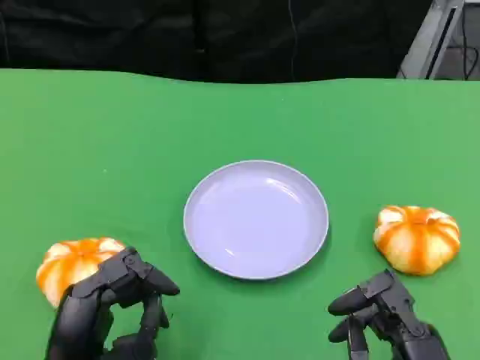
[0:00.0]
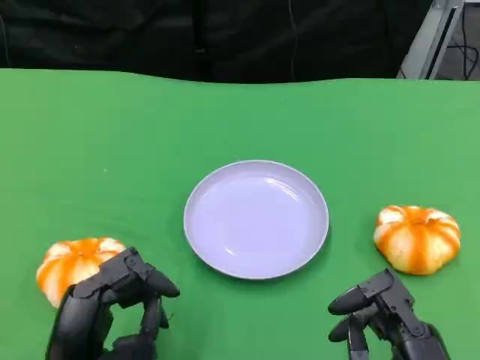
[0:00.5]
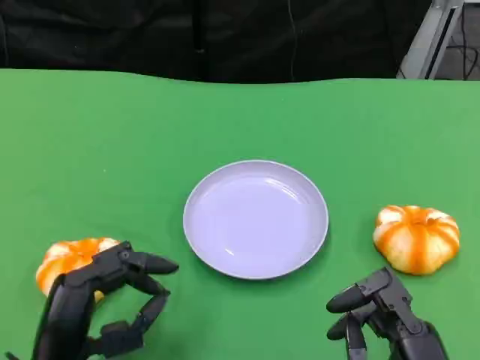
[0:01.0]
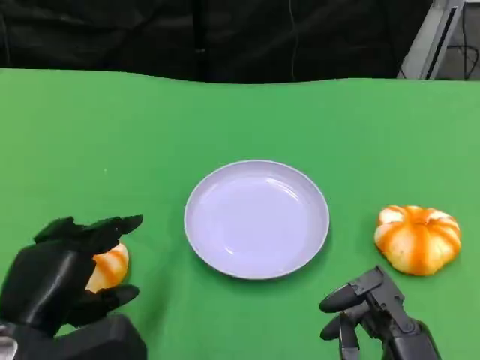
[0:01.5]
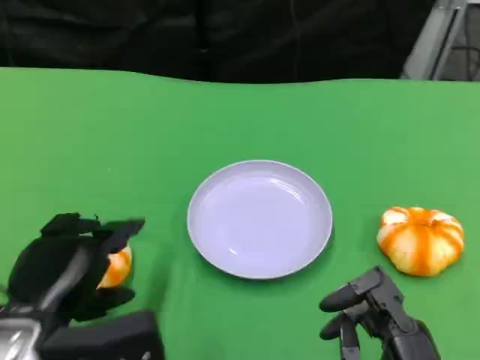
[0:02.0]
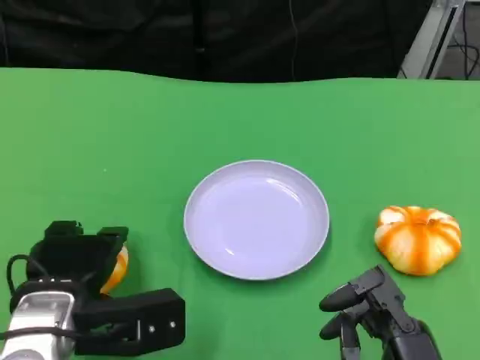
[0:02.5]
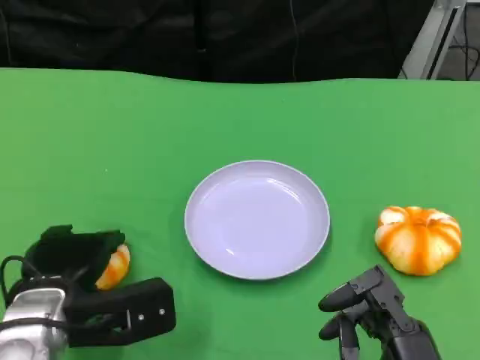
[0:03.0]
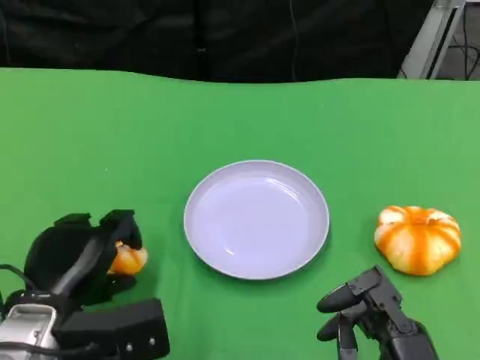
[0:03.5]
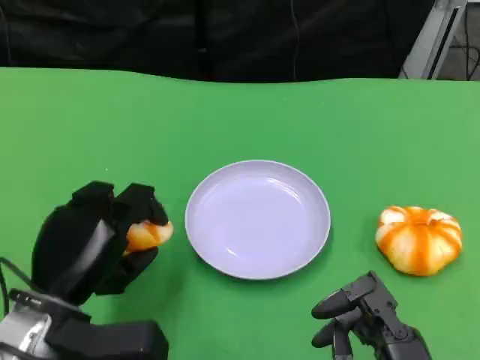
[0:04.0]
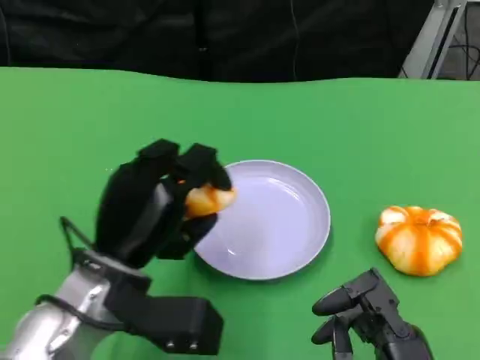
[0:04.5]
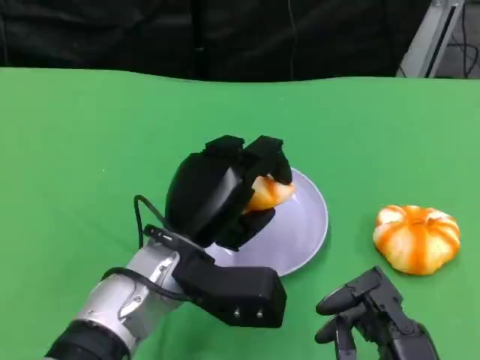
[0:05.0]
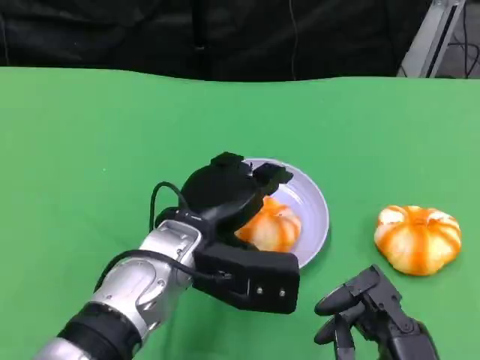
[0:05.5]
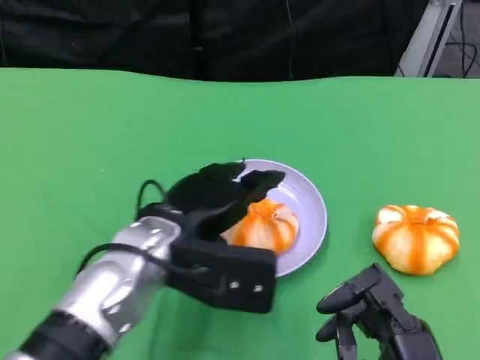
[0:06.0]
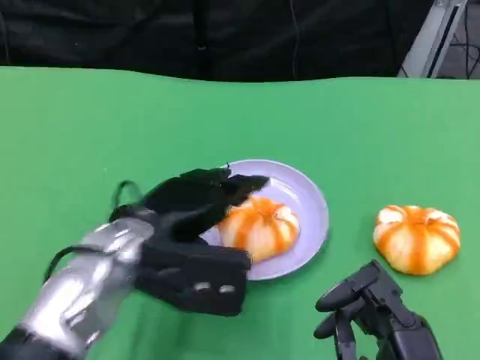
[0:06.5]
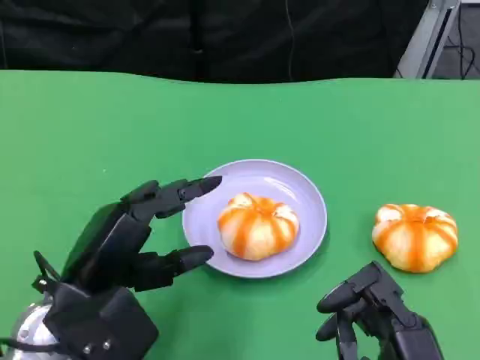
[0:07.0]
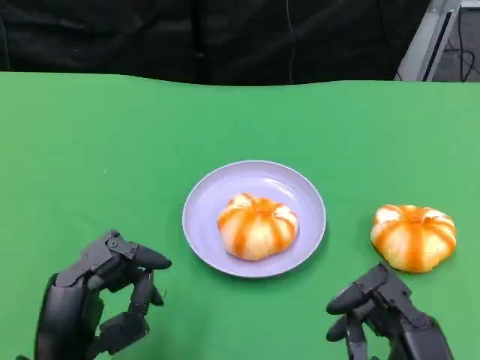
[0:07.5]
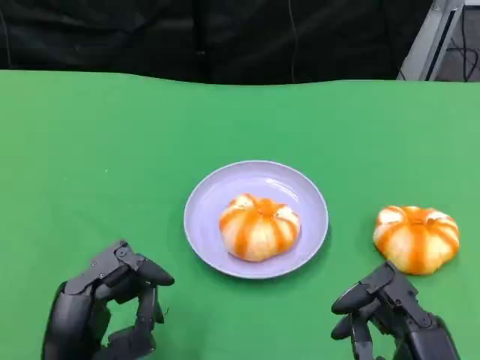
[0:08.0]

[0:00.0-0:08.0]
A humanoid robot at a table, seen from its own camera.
Task of the whole recording: Grasp the bread from the table and place it into the plate.
0:00.0 to 0:02.0: The left hand travels forward by some 5 cm.
0:04.0 to 0:06.0: The left hand heads to the right, covering approximately 10 cm.
0:06.0 to 0:08.0: The left hand heads backward, to the left and downward, covering about 15 cm.

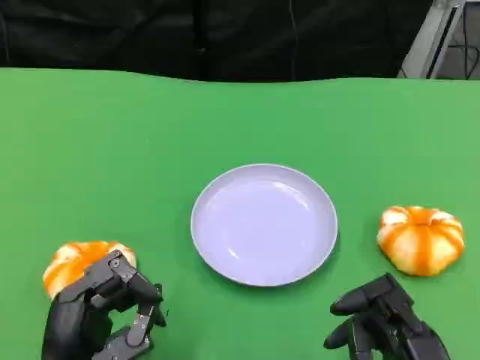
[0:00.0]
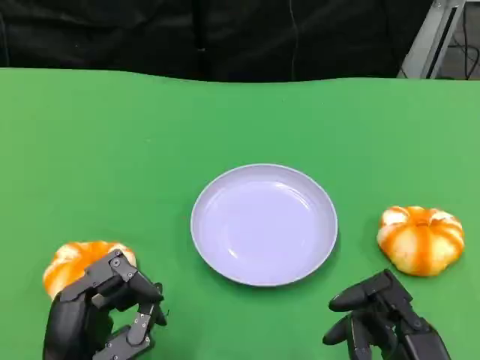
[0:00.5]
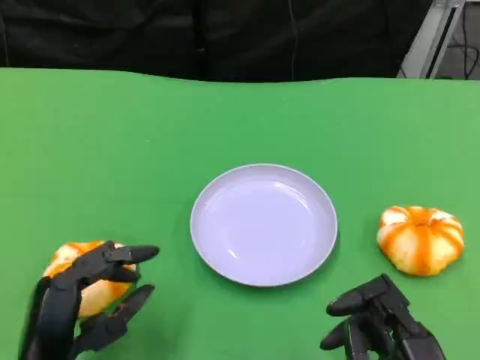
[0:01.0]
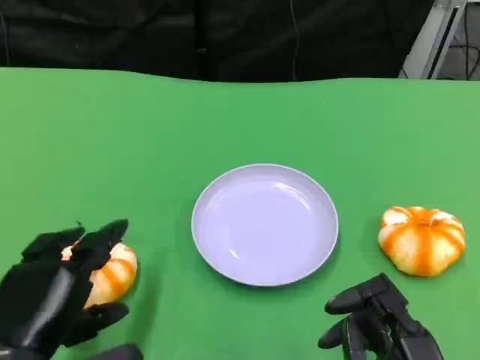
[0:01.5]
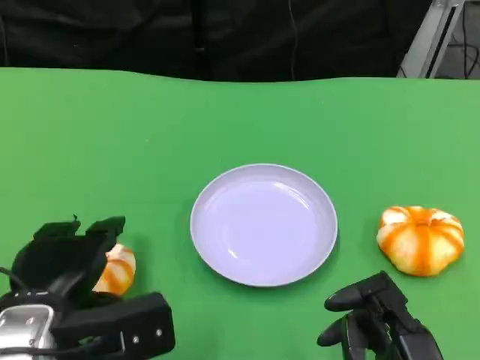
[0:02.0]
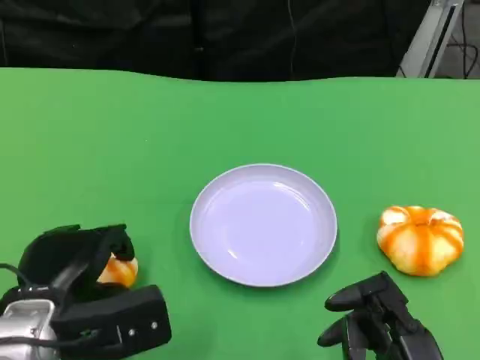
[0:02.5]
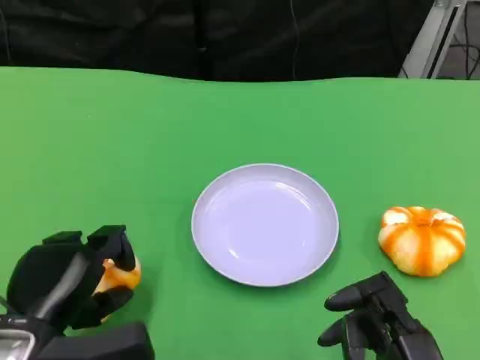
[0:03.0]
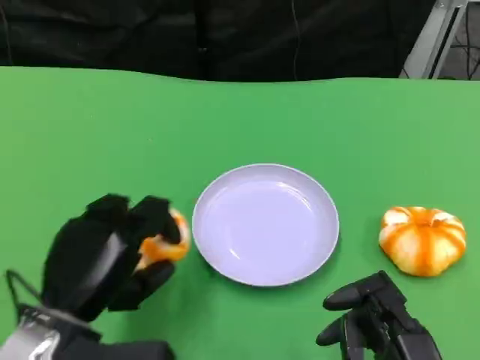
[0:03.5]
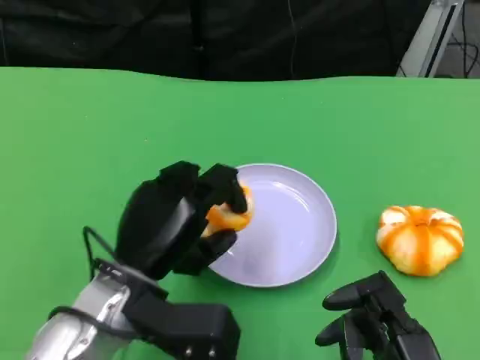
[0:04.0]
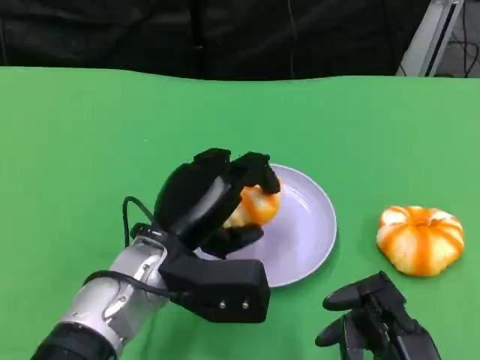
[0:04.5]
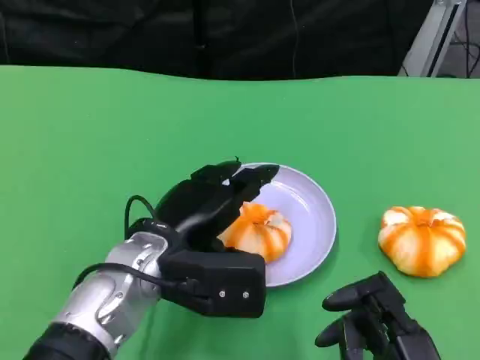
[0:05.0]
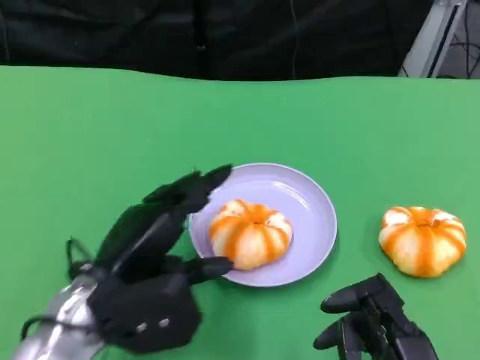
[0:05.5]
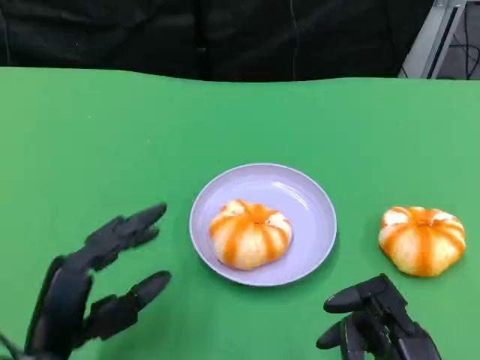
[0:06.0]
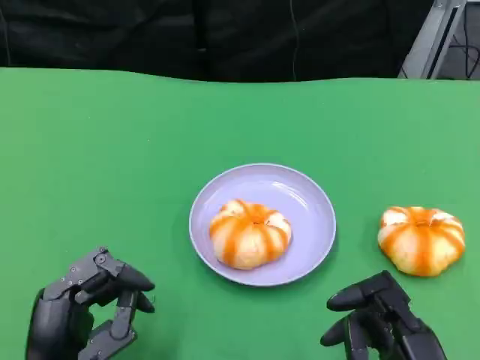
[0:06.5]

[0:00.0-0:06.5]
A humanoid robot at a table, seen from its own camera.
Task of the whole recording: Grasp the bread from the table and place it into the plate.
0:00.0 to 0:02.0: The left hand travels forward by roughly 5 cm.
0:02.0 to 0:04.5: The left hand shifts roughly 10 cm to the right and forward.
0:04.5 to 0:06.5: The left hand travels backward and to the left by roughly 15 cm.

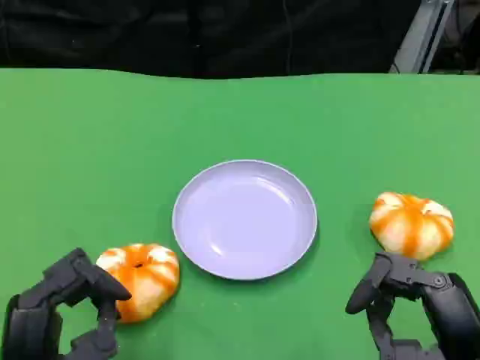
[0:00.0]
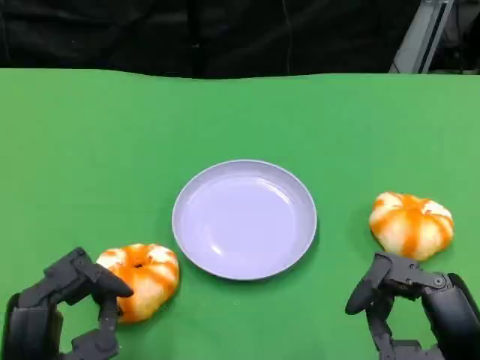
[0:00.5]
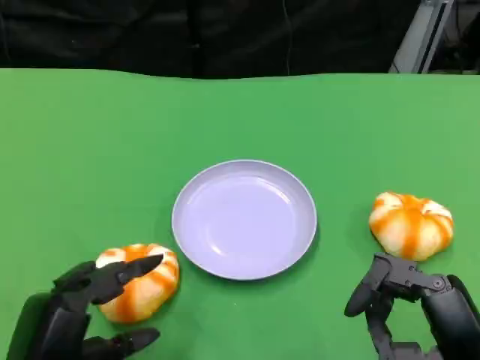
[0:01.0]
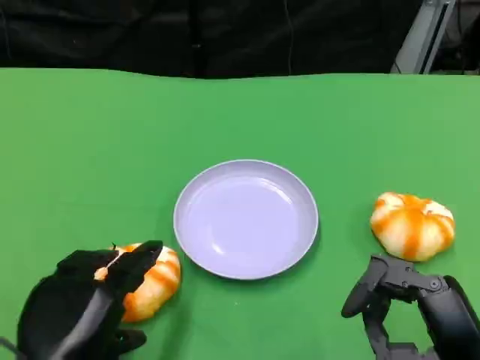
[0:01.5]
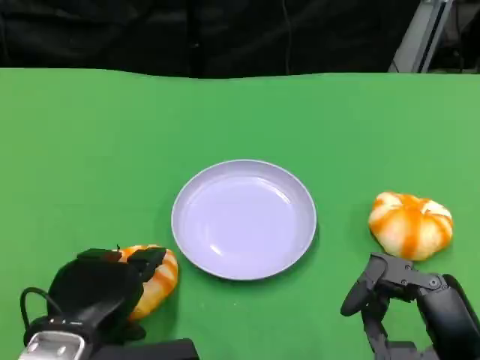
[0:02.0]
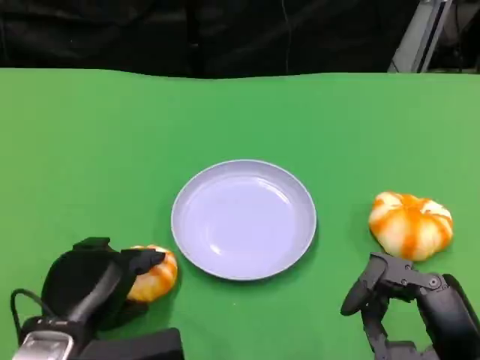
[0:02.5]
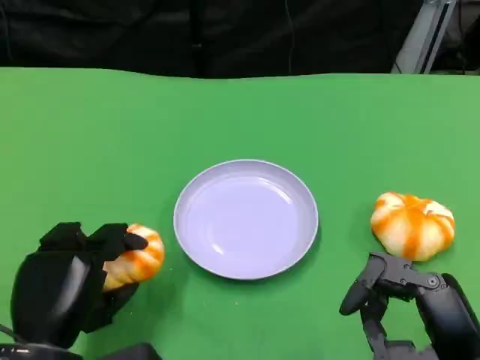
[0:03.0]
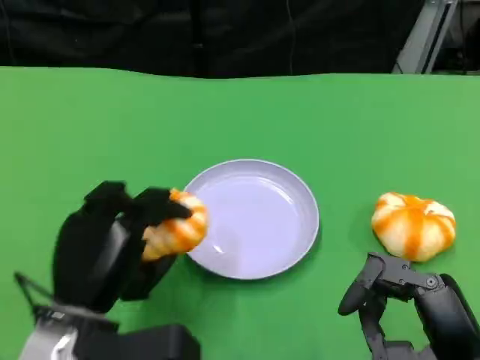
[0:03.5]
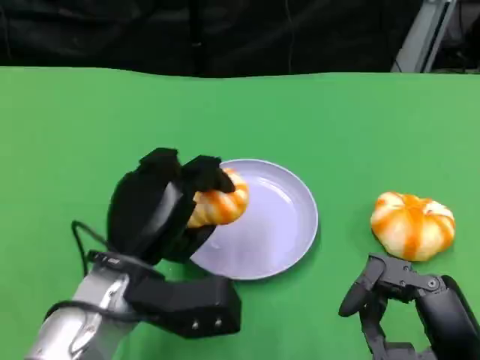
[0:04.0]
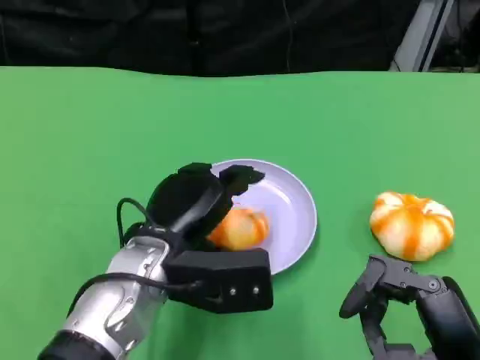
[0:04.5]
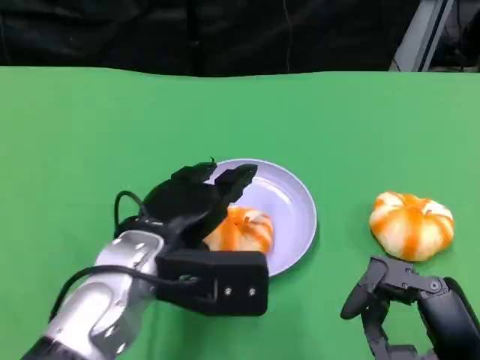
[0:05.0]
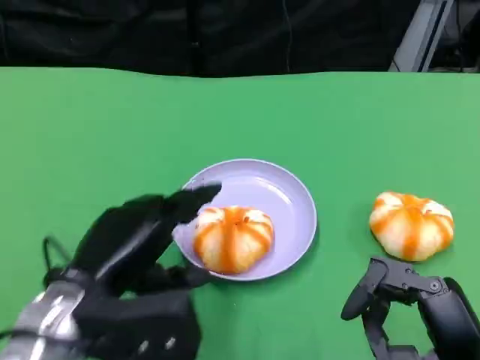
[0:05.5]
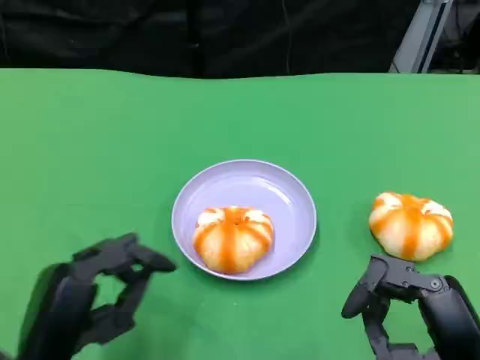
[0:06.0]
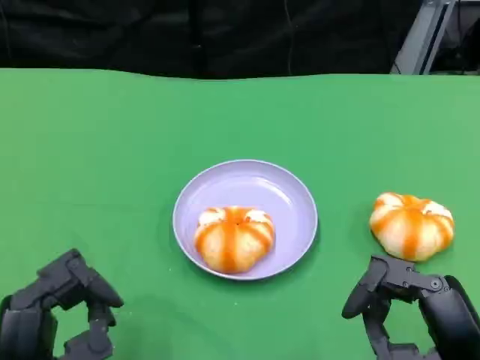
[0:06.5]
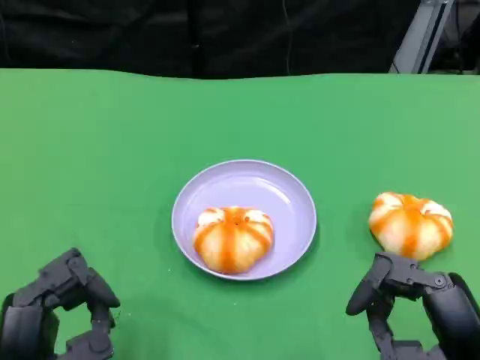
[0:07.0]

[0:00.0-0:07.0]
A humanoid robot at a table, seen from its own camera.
Task of the whole recording: Grasp the bread from the table and place it into the plate.
0:00.0 to 0:02.0: The left hand shifts approximately 5 cm forward.
0:03.5 to 0:05.0: The left hand heads to the right, covering some 5 cm.
0:05.0 to 0:07.0: The left hand goes approximately 15 cm backward, to the left and downward.

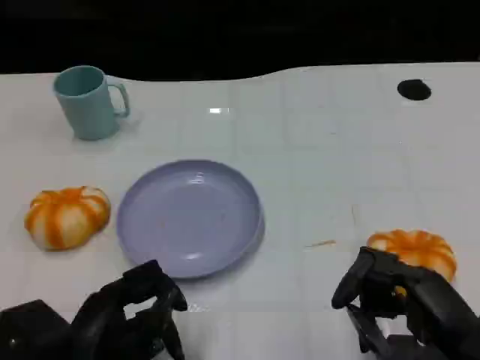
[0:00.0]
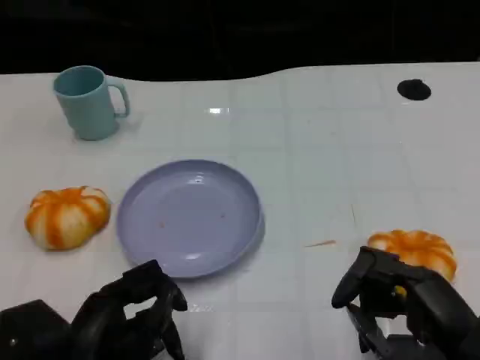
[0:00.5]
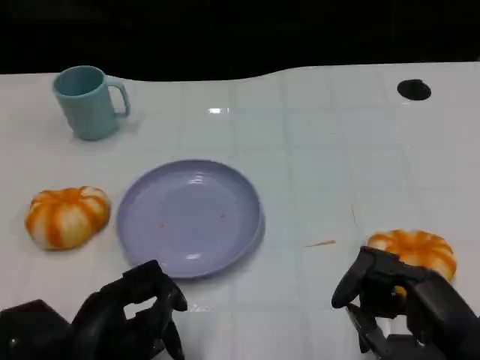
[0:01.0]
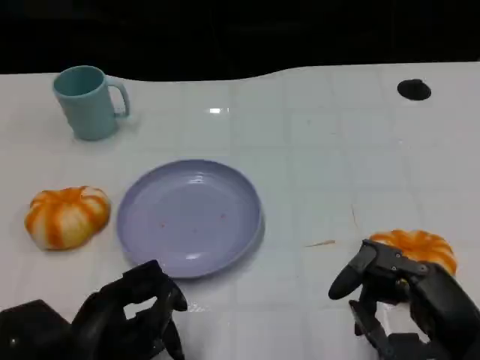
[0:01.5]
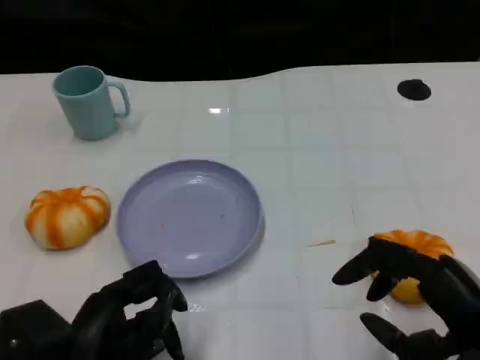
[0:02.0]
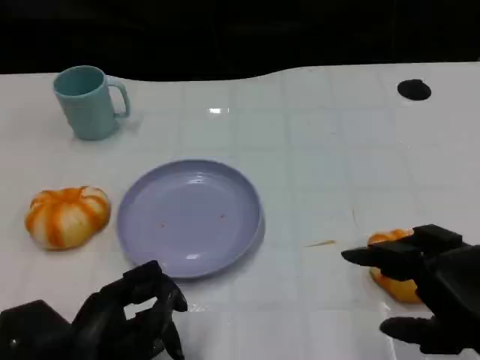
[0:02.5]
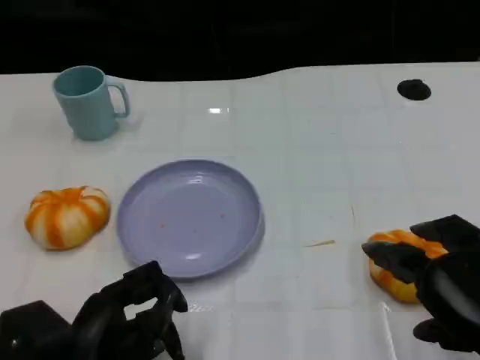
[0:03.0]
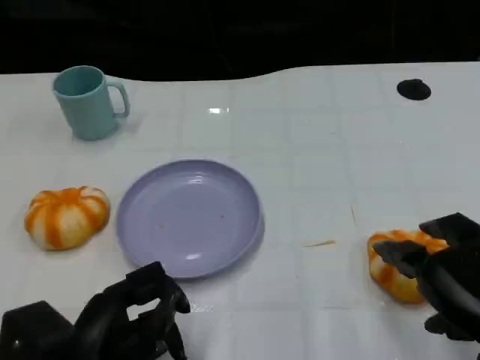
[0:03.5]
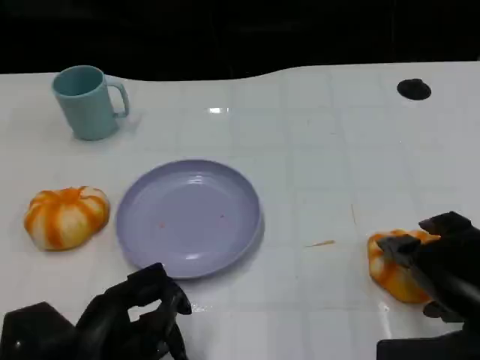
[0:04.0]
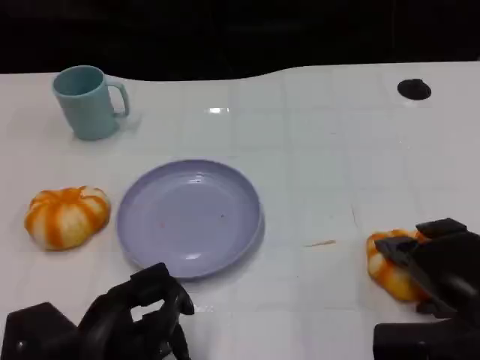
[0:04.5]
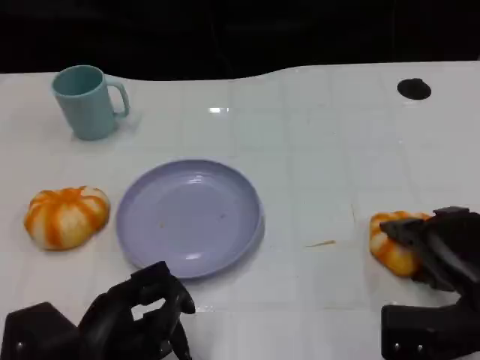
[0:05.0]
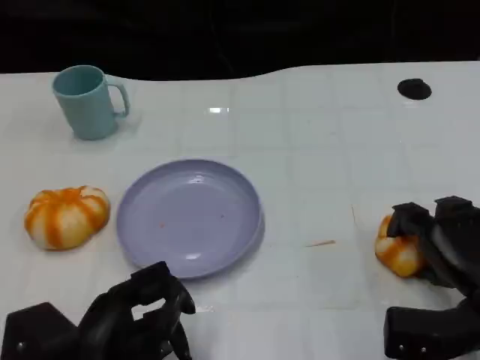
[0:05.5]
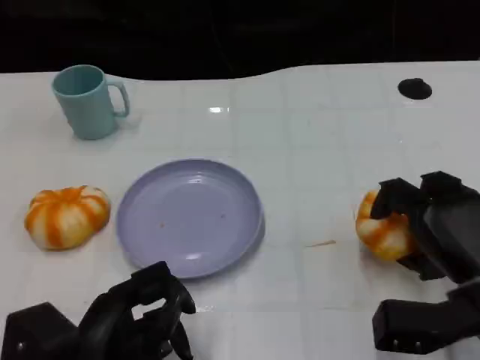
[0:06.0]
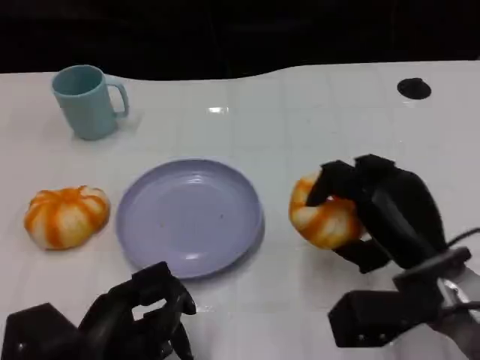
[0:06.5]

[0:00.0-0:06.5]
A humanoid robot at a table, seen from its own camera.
Task of the whole recording: Grasp the bread from the table and place it into the plate.
0:02.0 to 0:04.5: The right hand travels forward by about 5 cm.
0:04.5 to 0:06.5: The right hand heads to the left, covering about 5 cm.
